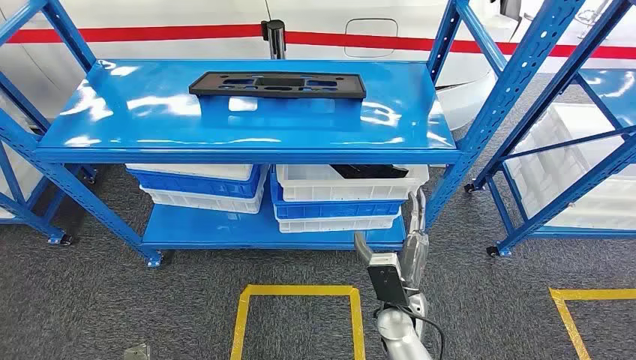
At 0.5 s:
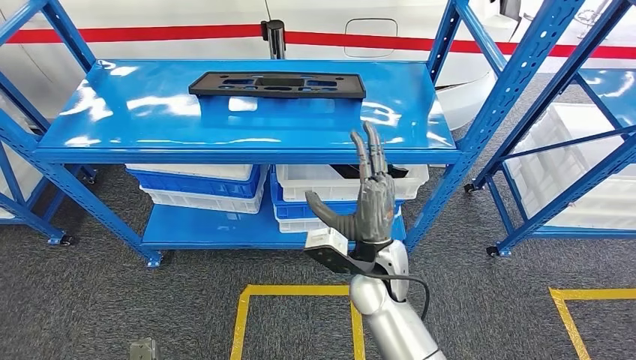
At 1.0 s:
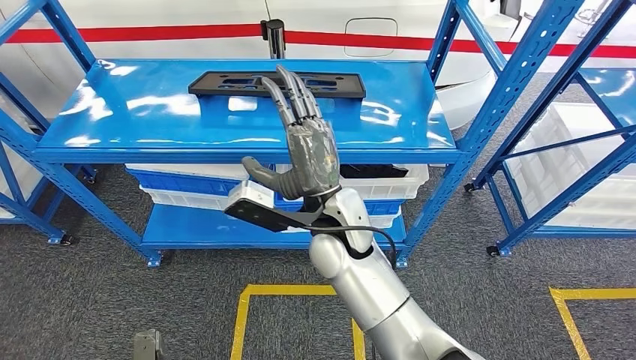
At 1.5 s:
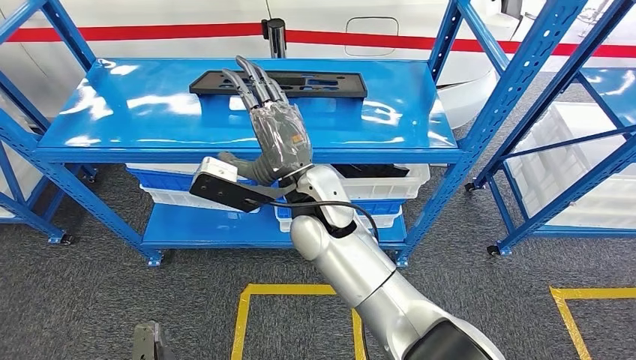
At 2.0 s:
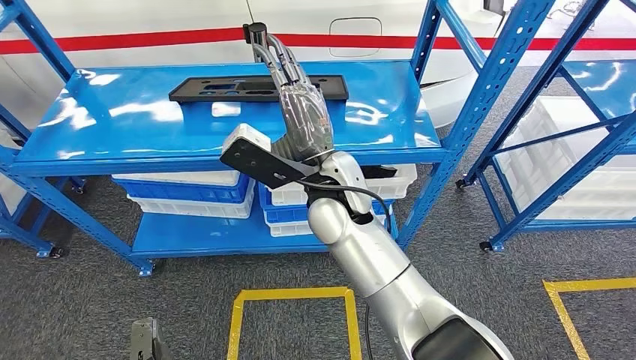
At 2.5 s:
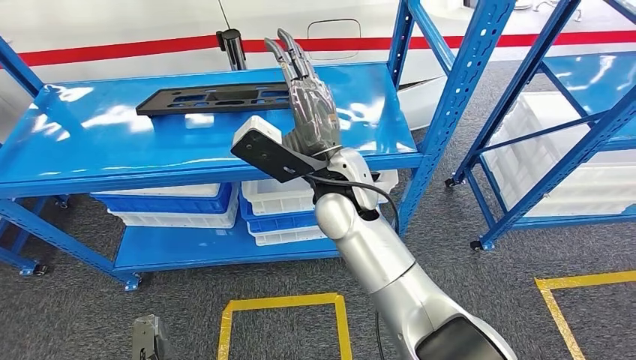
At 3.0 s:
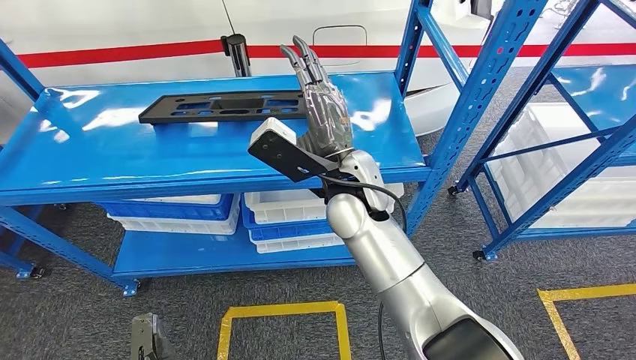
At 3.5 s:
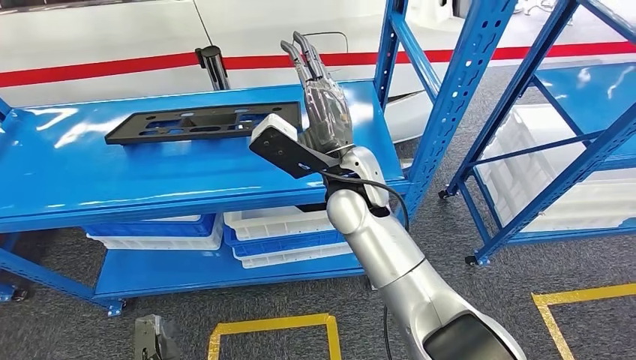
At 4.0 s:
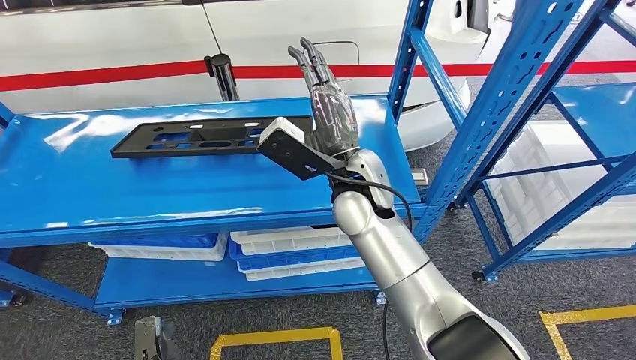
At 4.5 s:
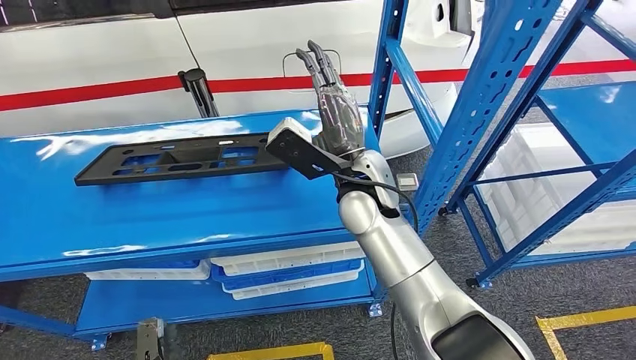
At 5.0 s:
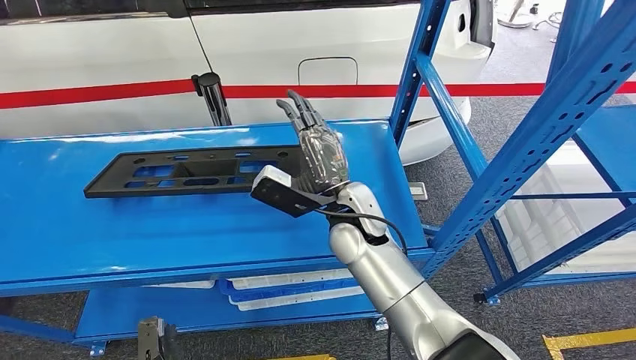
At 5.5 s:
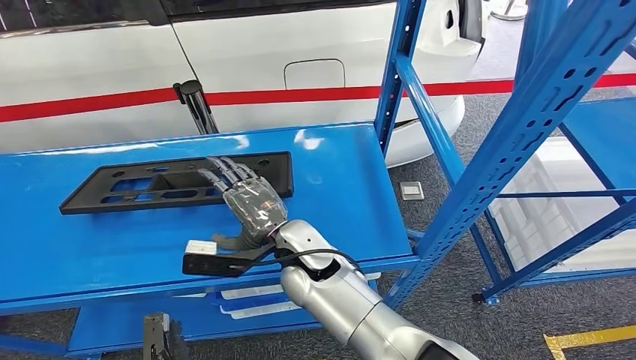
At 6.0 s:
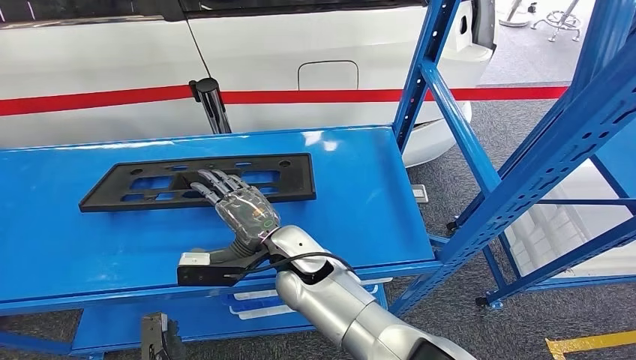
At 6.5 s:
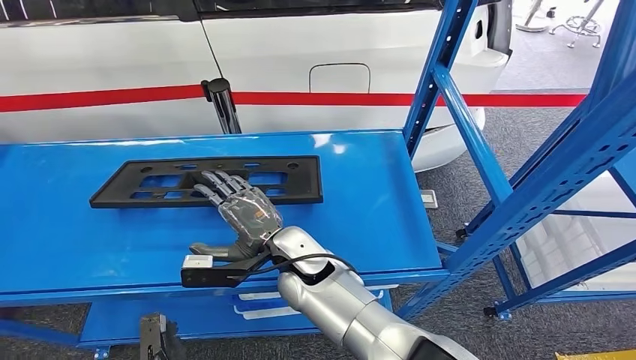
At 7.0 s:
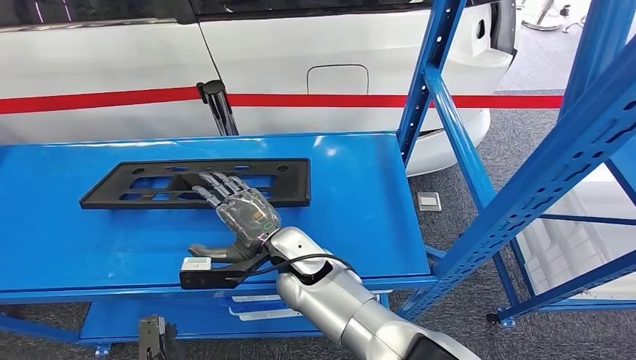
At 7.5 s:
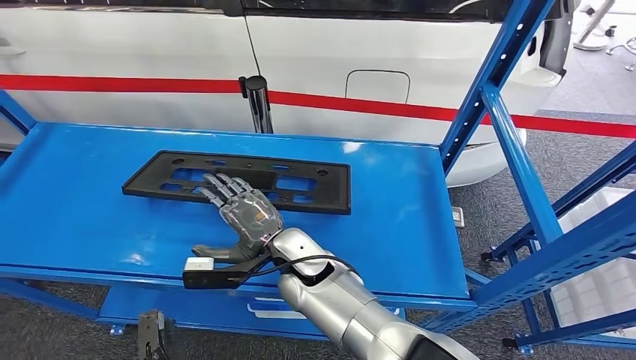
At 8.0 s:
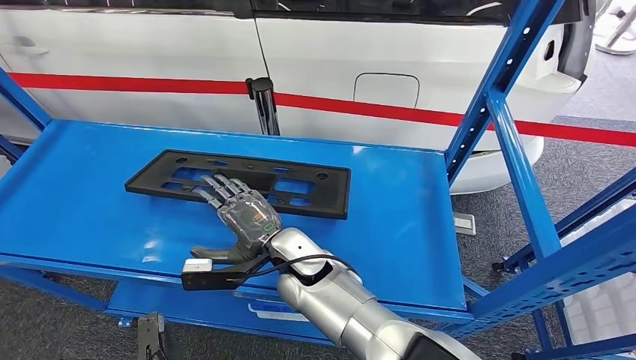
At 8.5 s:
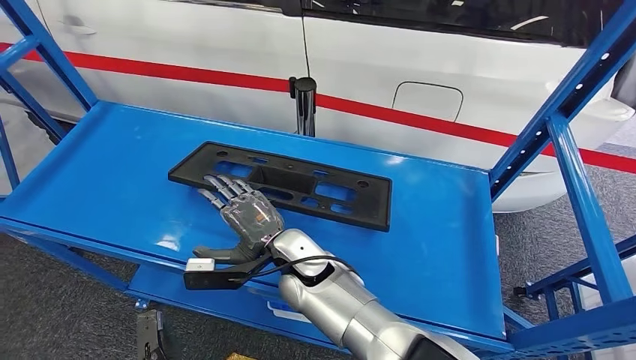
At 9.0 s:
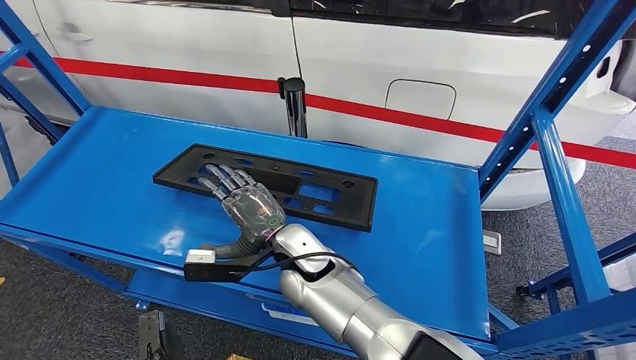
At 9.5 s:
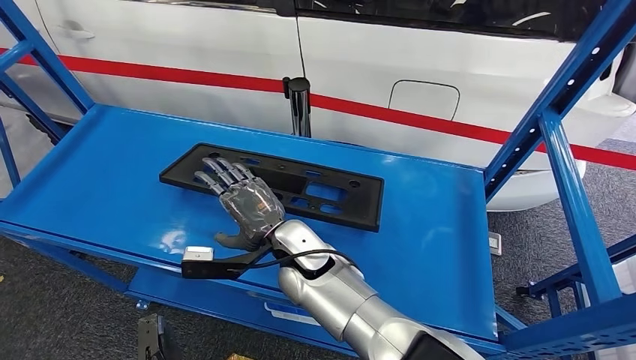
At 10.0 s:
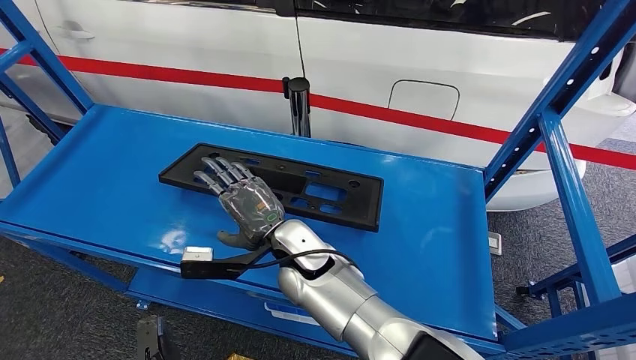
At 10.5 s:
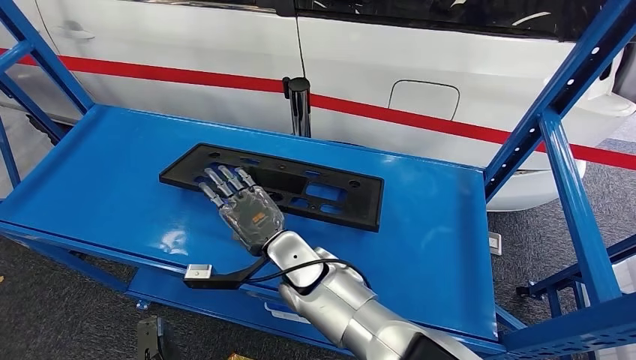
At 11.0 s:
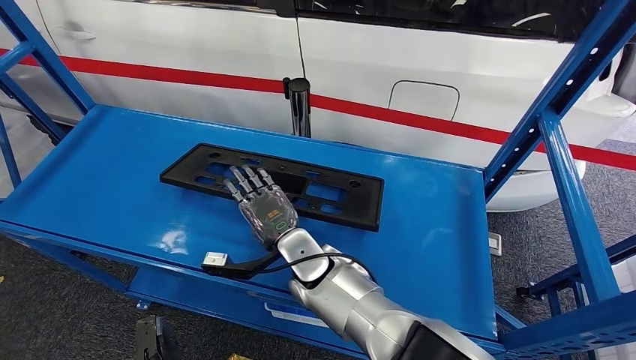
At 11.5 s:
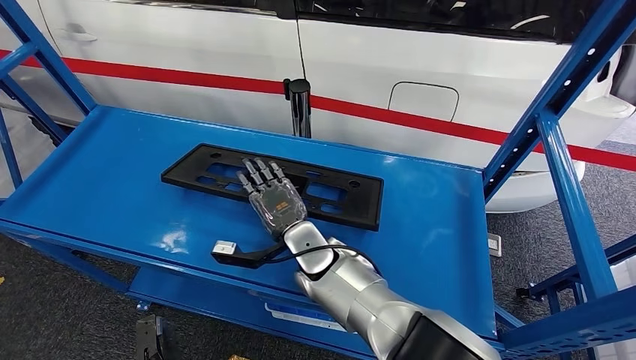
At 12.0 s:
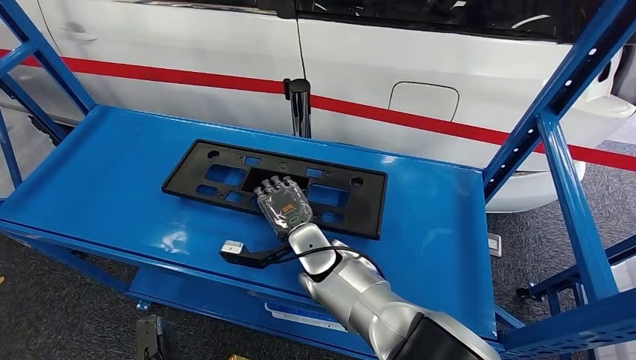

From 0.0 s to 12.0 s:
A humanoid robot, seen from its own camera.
From 10.0 s to 12.0 s: The right hand changes place by about 5 cm.

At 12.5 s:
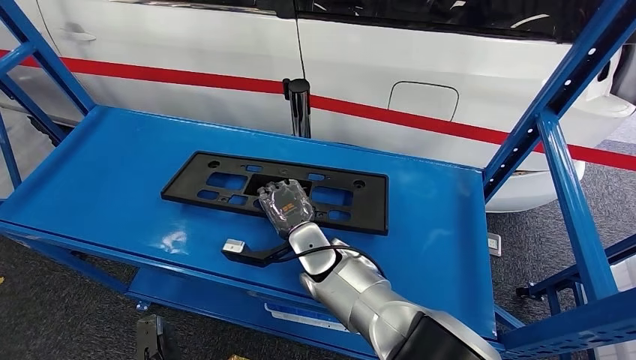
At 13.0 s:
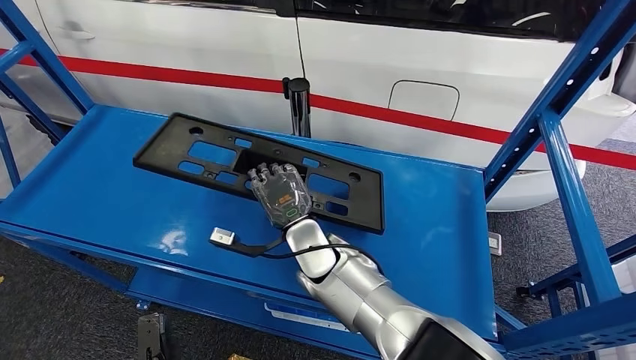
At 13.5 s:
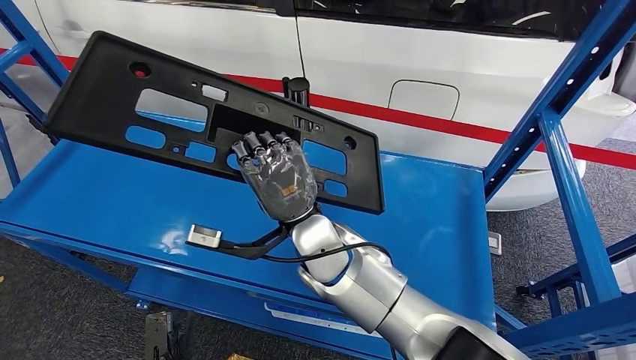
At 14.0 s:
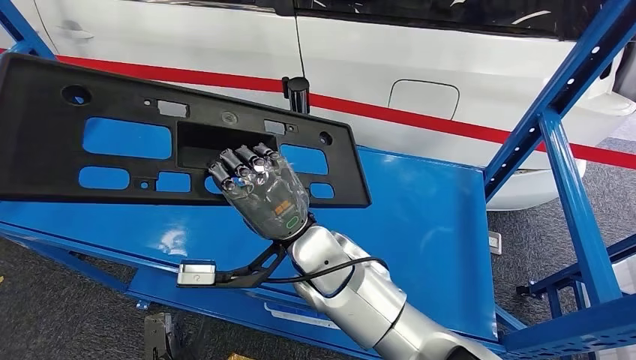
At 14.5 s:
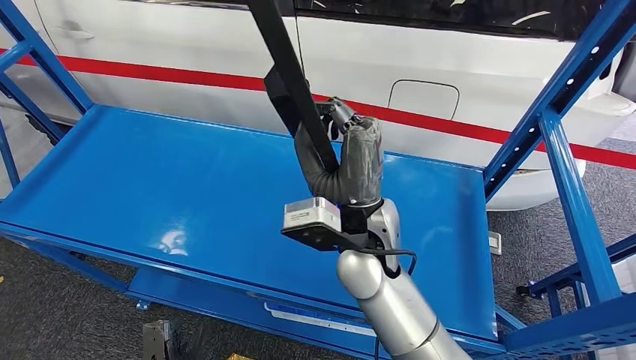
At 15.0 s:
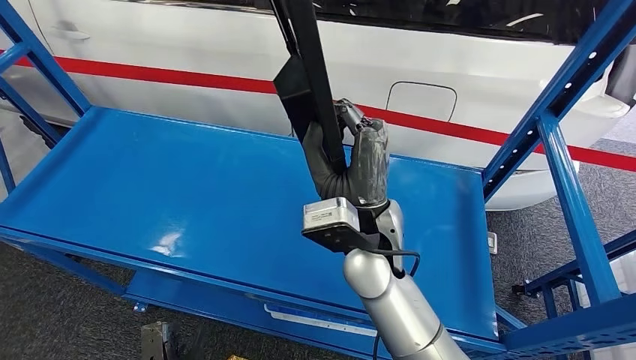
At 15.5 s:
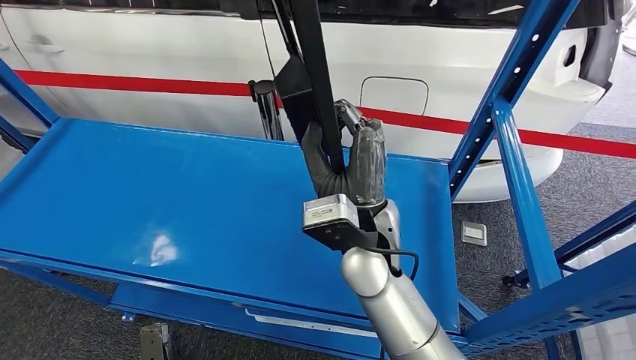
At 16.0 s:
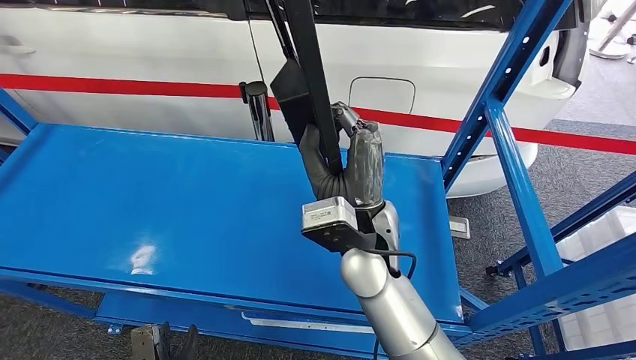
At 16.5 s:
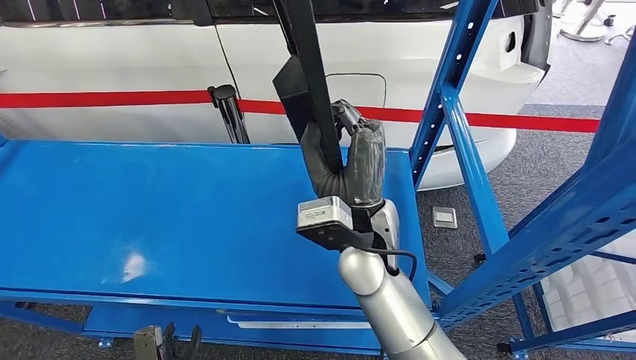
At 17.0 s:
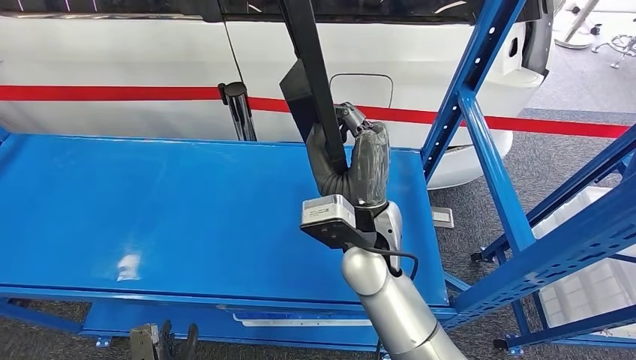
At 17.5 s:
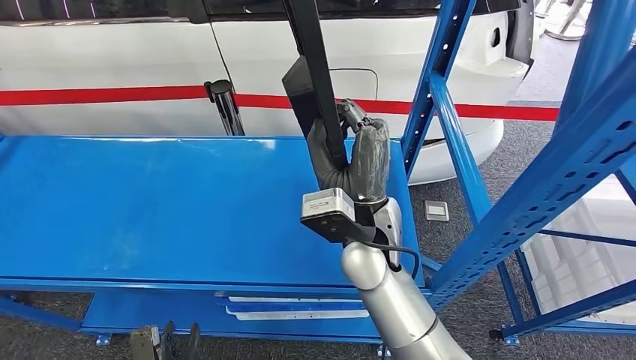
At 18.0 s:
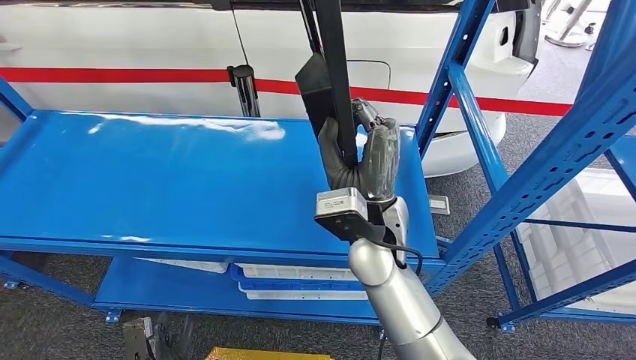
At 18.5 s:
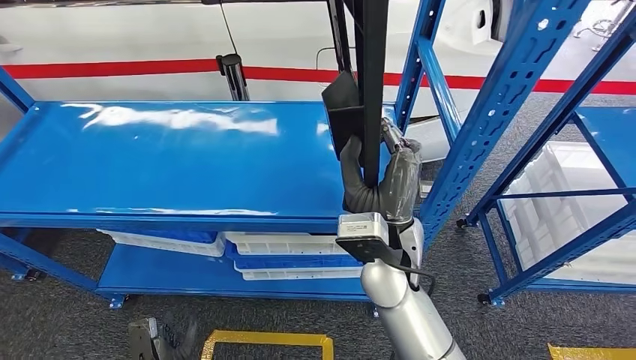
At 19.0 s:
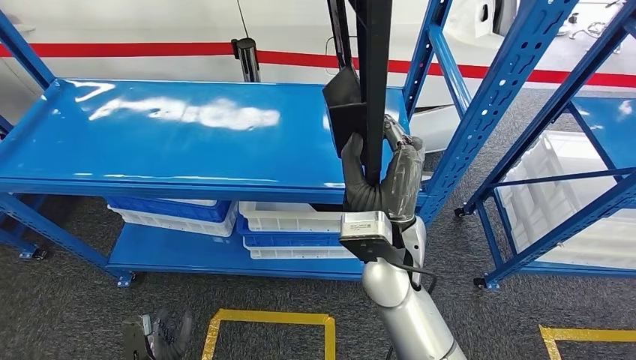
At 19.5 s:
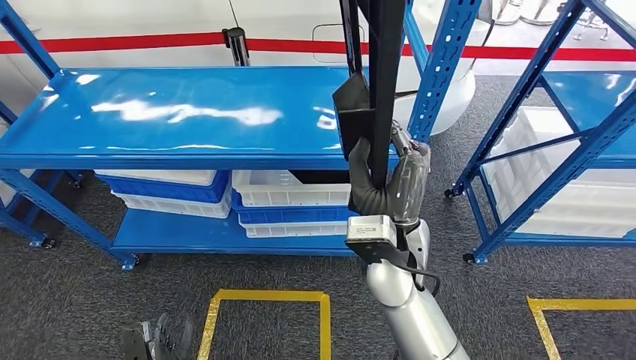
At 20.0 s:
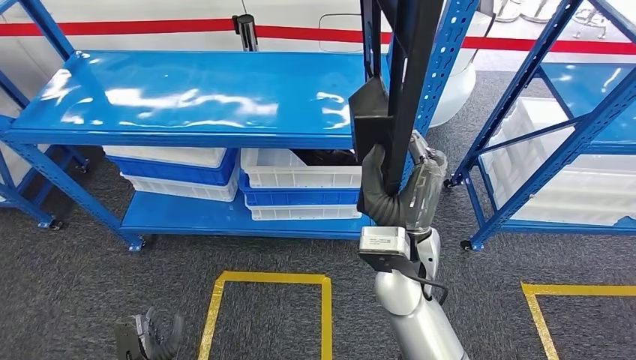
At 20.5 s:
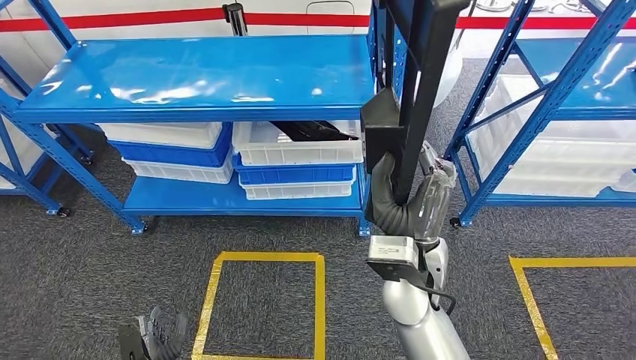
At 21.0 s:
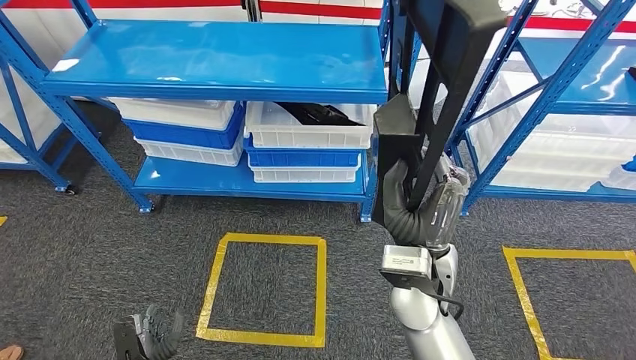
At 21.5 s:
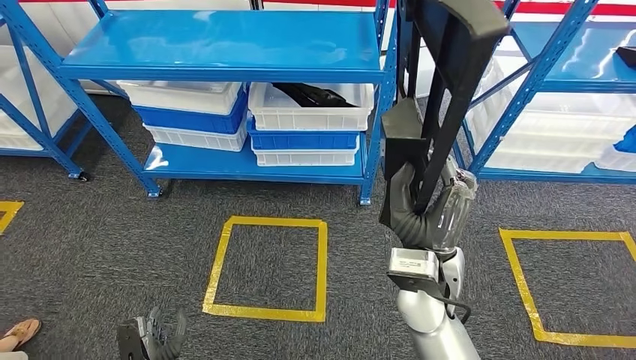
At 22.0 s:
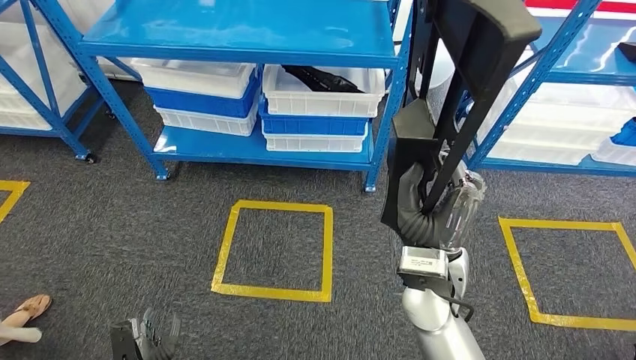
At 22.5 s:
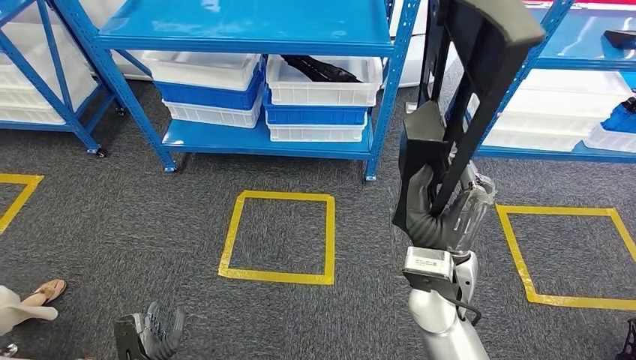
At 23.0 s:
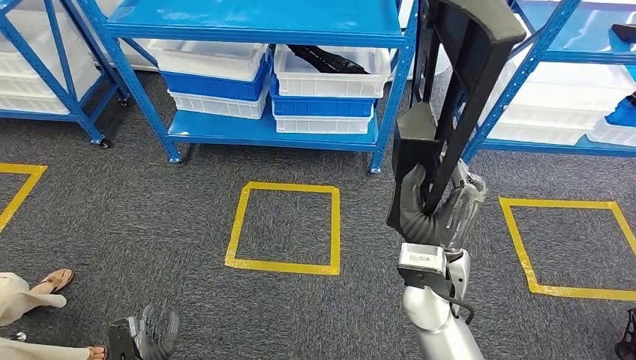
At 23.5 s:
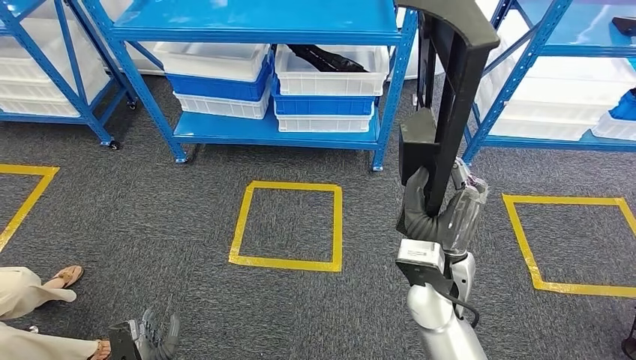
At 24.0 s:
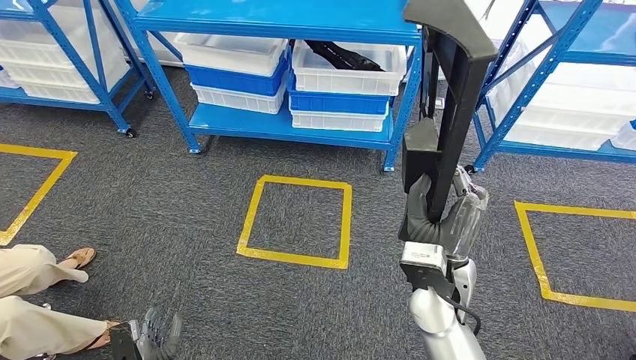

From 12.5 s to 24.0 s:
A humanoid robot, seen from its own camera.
Step, from 12.5 s to 17.5 s: Pick up the large material from the shelf.